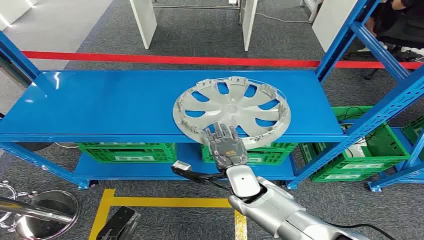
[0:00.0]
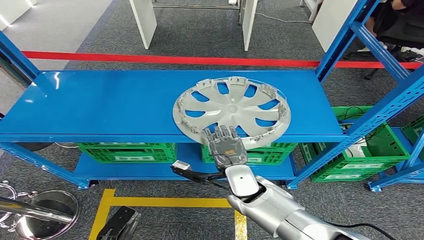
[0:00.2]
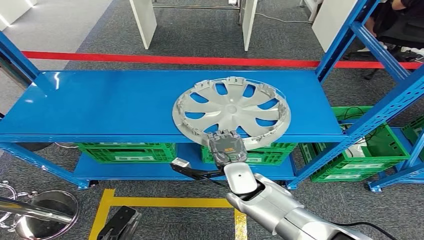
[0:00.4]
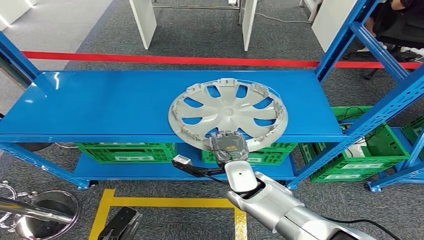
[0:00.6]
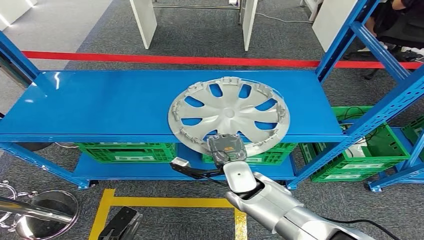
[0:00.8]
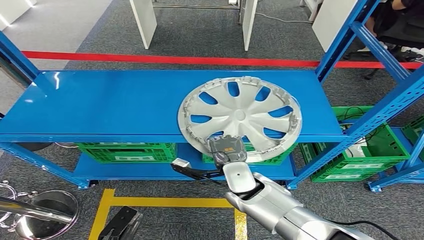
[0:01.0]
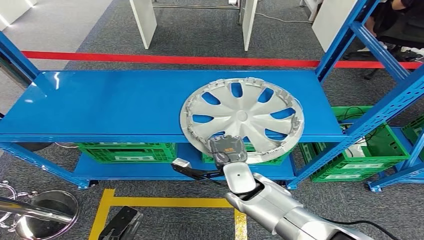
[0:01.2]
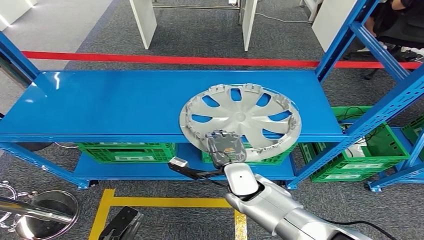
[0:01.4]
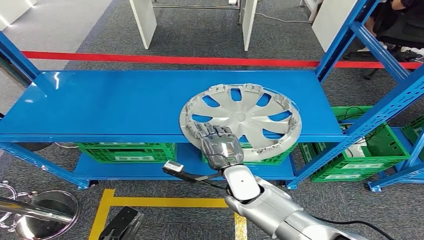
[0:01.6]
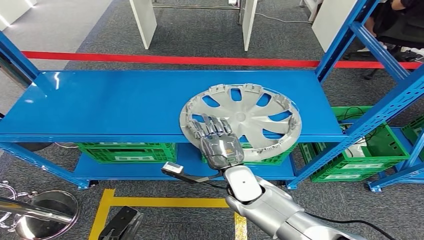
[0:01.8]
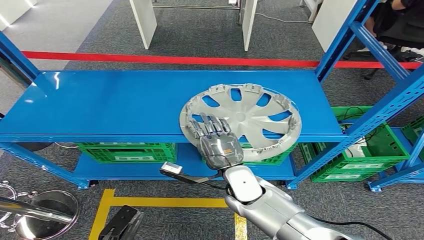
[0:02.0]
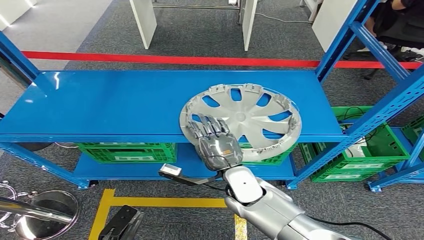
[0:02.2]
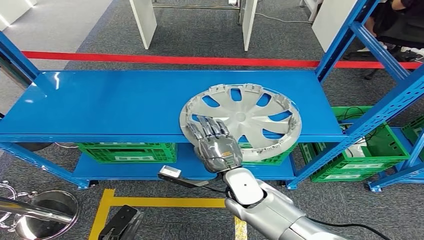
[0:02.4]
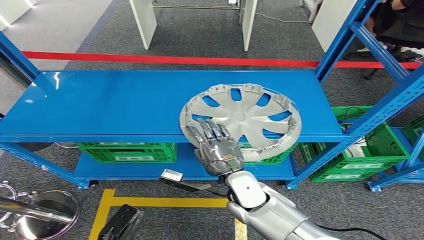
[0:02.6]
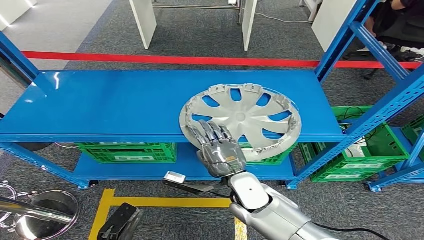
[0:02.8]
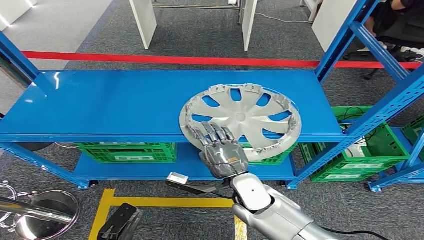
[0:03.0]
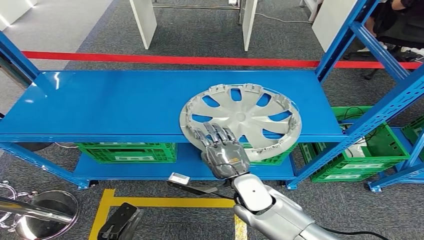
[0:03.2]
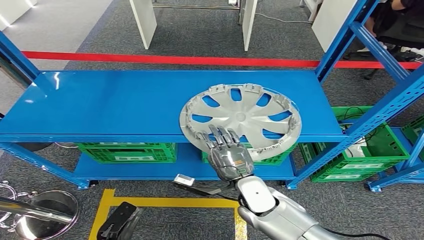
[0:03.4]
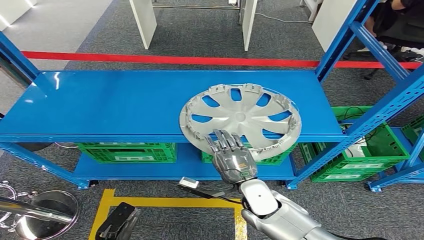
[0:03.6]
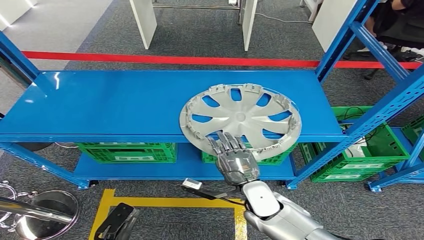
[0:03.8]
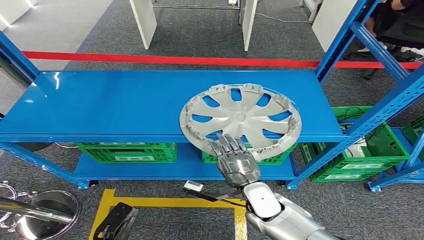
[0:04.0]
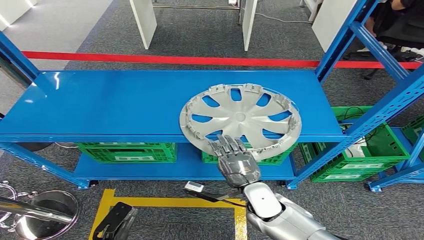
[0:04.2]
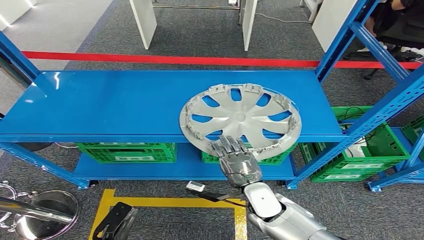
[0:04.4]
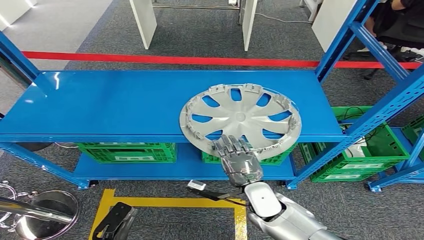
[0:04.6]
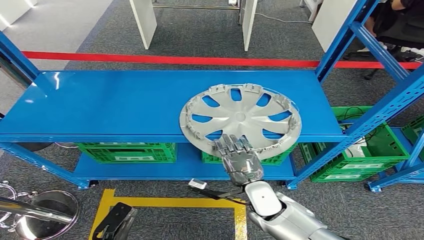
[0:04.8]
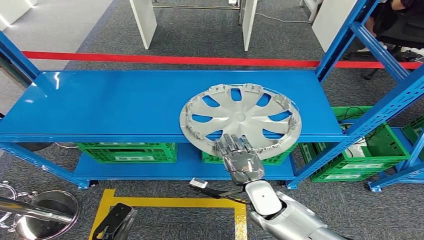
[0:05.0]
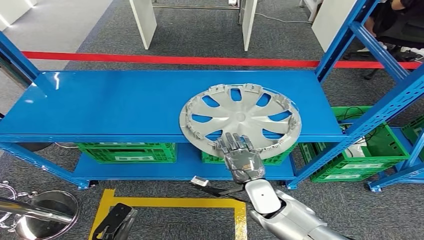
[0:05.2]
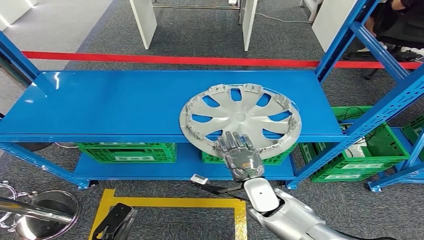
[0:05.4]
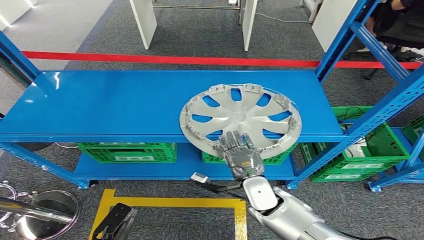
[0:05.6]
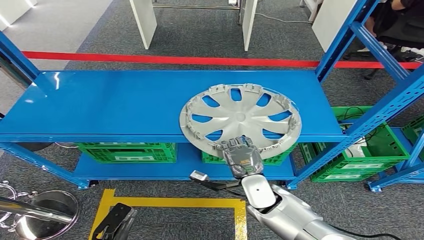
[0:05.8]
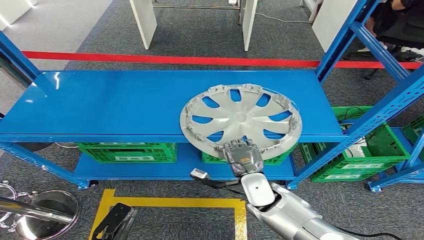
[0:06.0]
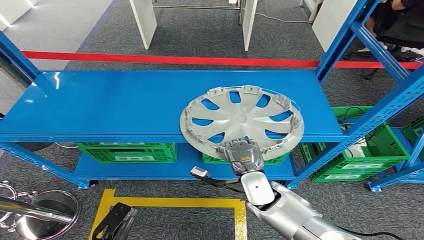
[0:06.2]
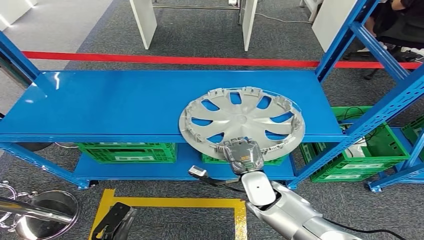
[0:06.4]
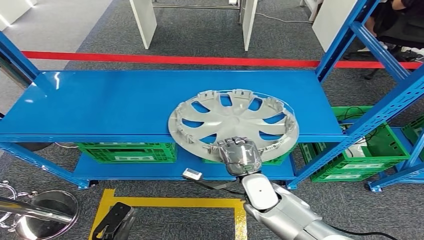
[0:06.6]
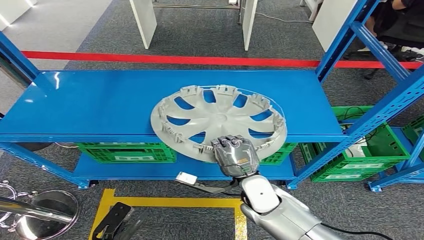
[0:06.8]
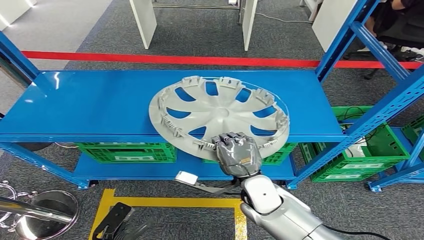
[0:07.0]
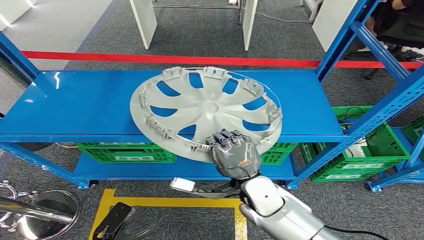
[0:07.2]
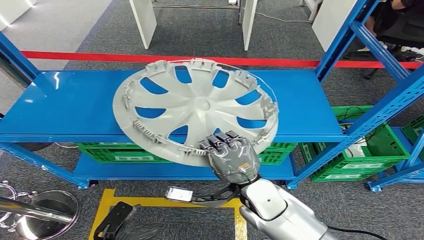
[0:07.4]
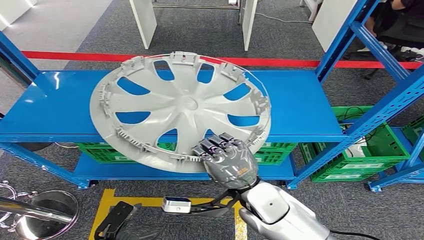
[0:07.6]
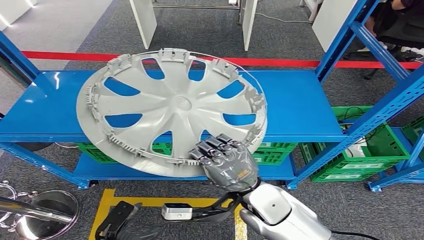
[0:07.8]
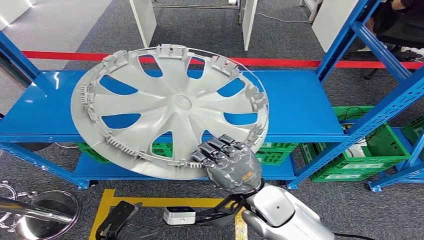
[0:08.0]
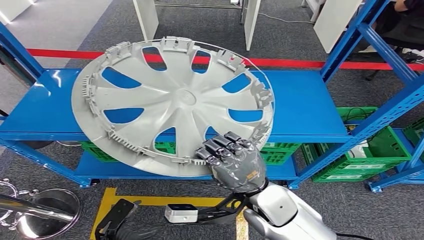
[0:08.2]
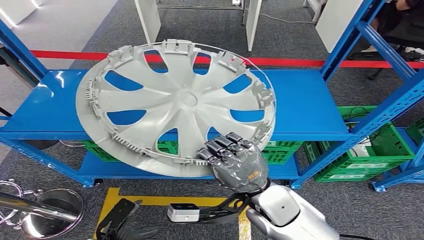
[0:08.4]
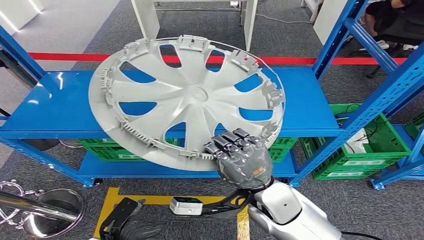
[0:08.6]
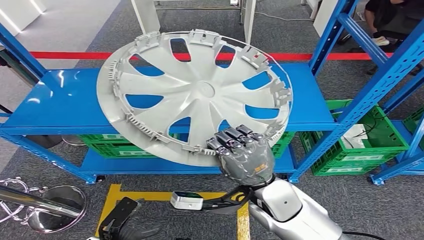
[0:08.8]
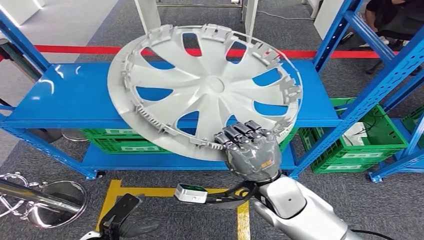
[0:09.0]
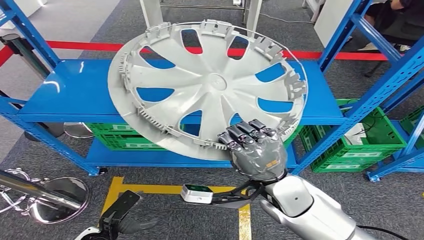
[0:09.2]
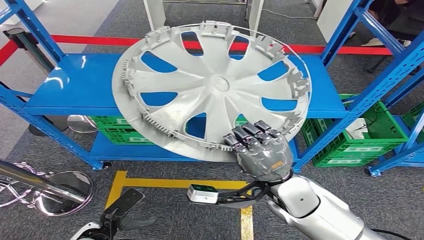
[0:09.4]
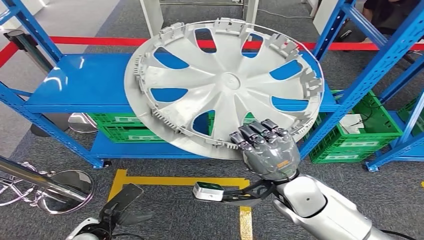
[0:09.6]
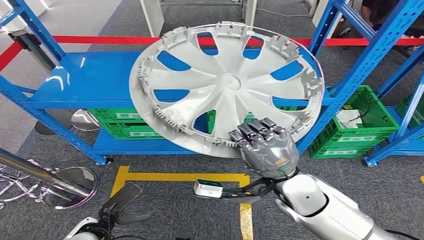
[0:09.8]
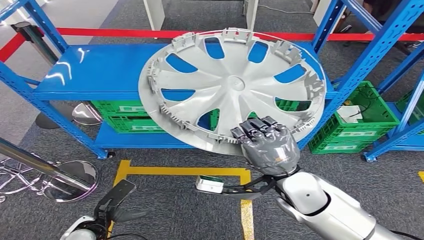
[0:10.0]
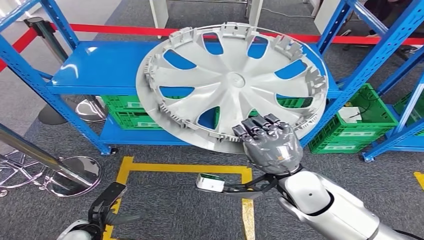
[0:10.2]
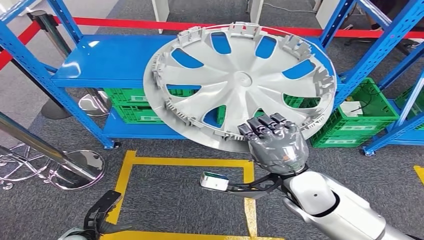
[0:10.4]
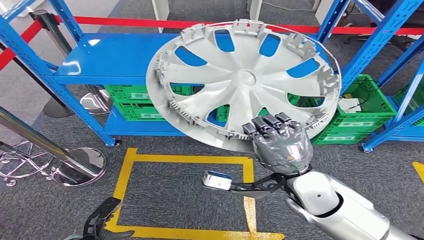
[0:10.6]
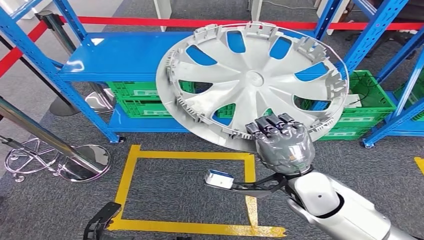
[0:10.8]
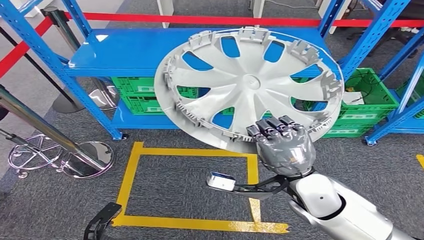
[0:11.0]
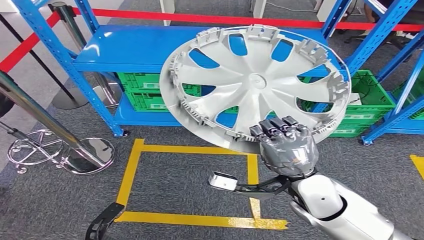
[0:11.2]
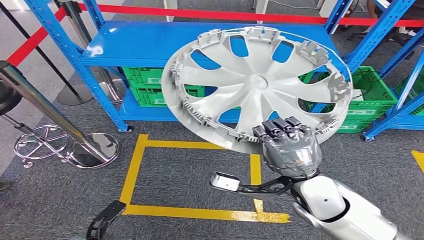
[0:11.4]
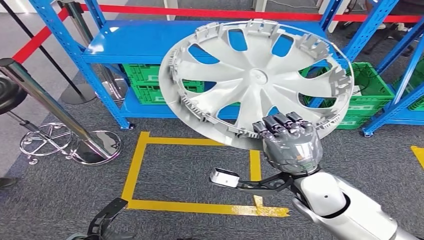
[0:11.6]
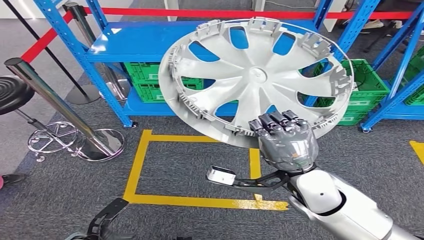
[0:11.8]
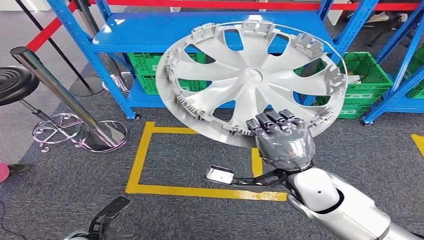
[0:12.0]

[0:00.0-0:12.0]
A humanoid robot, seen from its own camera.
Step, 0:00.0 to 0:09.6: Pick up the small component from the shelf.
0:01.6 to 0:03.0: The hands make only small movements.
0:03.0 to 0:04.4: The right hand ends up some 5 cm from where it was.
0:04.4 to 0:06.0: There are only small adjustments of the hands.

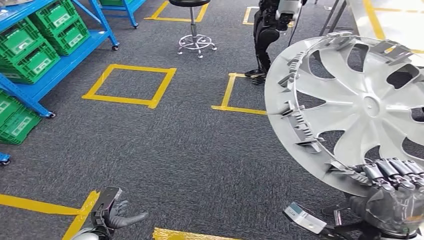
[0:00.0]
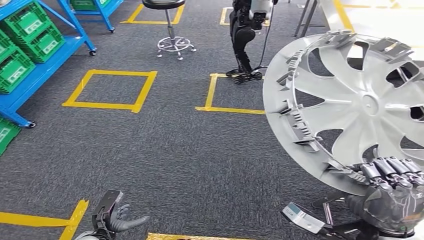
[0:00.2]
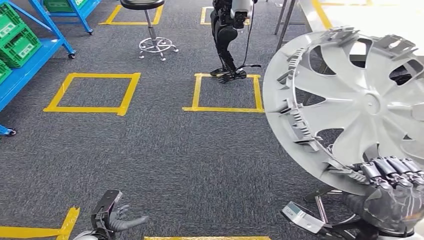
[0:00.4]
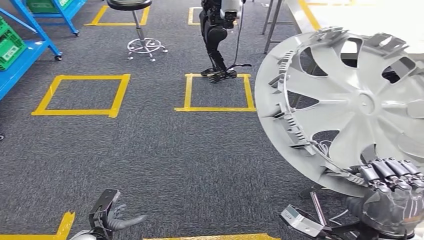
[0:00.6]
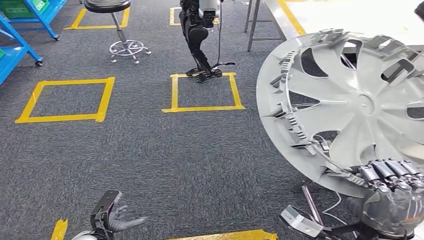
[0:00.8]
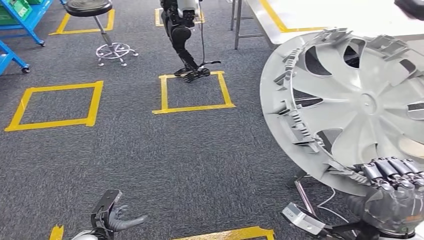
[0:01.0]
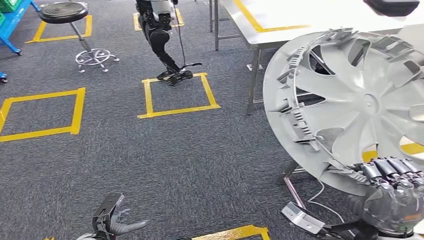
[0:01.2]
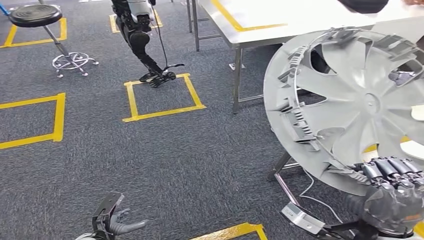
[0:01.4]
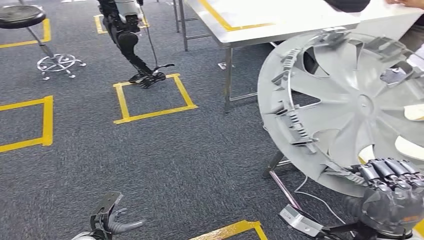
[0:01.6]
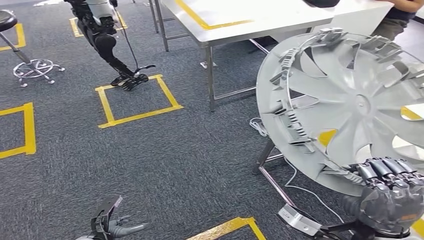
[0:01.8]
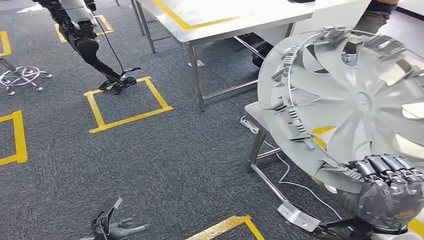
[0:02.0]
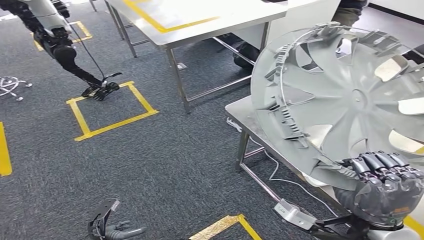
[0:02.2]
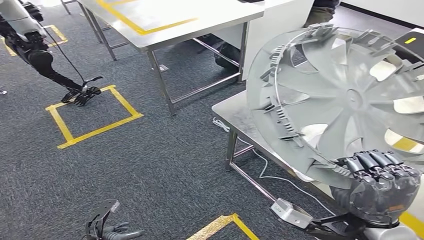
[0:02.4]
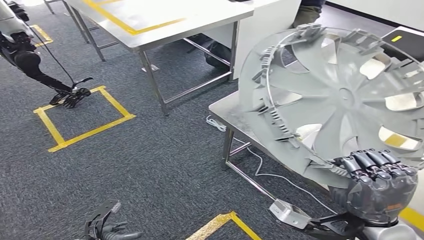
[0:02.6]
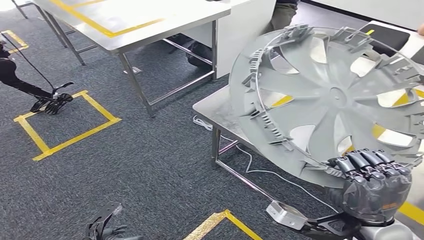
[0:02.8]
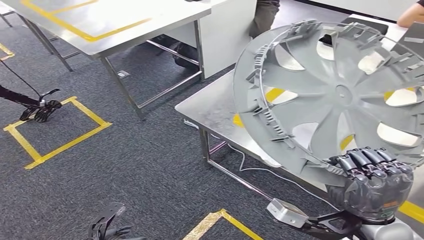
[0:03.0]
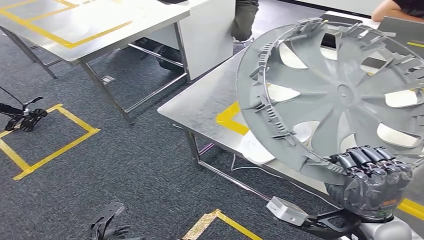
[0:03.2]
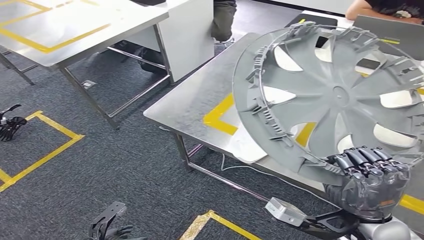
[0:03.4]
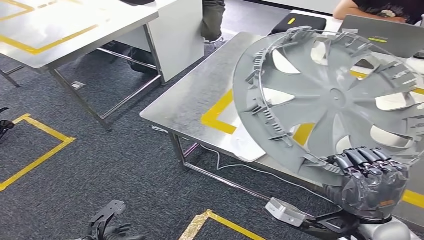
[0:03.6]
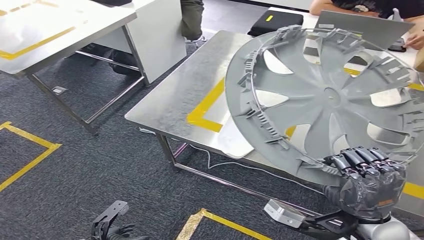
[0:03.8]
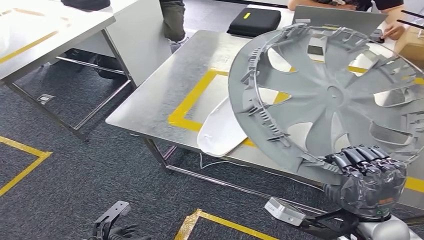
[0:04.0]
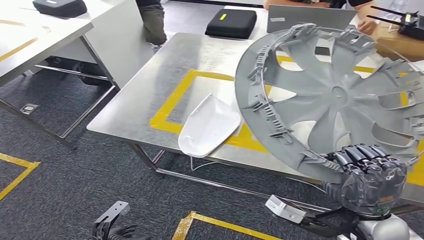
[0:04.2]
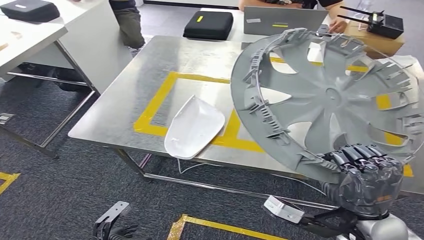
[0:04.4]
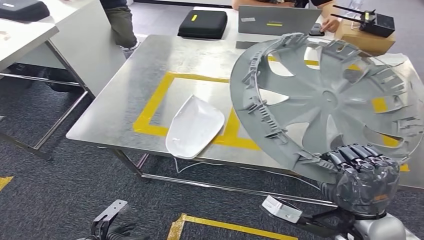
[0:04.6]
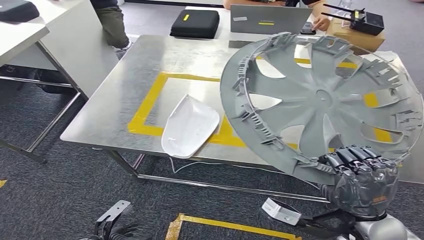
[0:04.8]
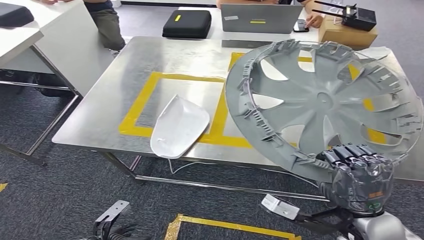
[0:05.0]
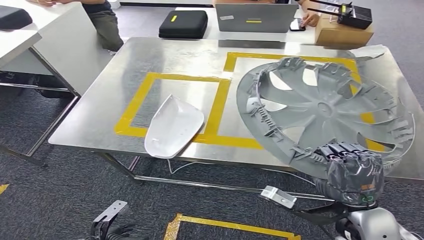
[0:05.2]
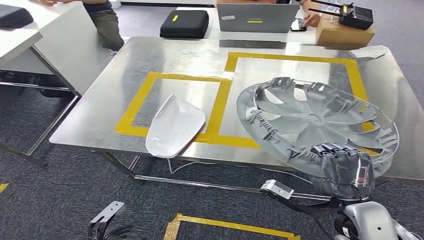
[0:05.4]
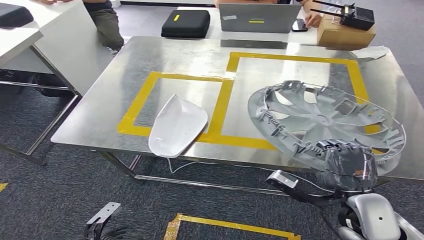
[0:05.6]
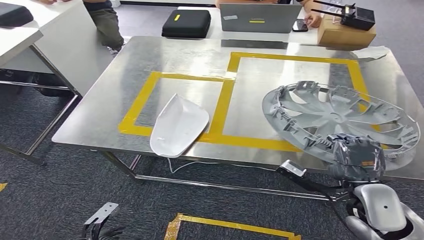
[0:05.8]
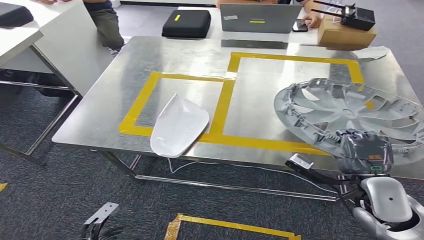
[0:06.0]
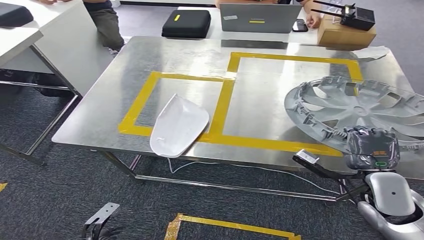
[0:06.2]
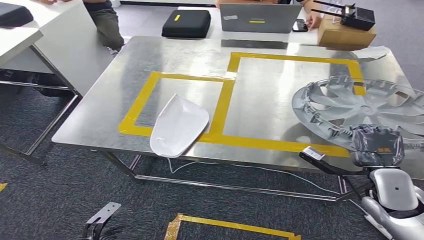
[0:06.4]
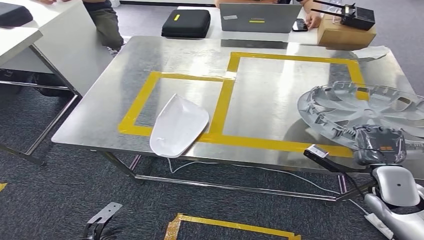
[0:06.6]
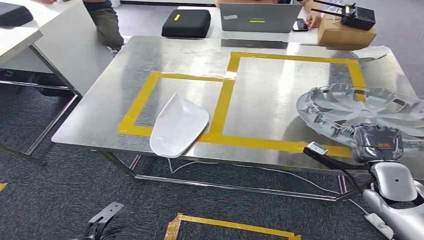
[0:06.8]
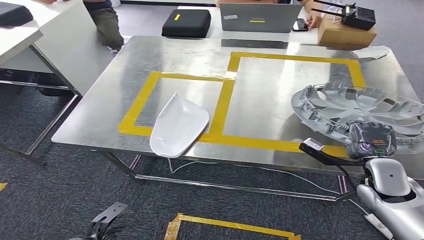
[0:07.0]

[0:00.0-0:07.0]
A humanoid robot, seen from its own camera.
Step, 0:00.0 to 0:04.0: Move the small component to the workbench.
0:05.6 to 0:07.0: The right hand travels forward and to the right by some 10 cm.
